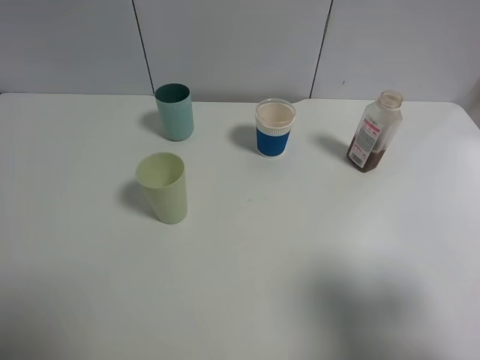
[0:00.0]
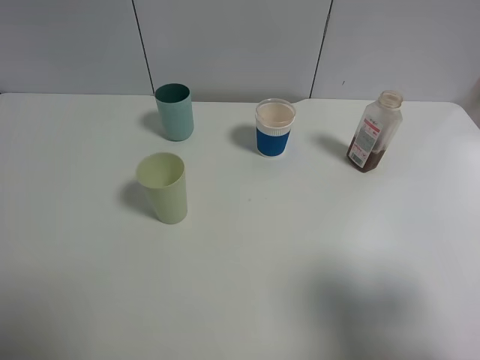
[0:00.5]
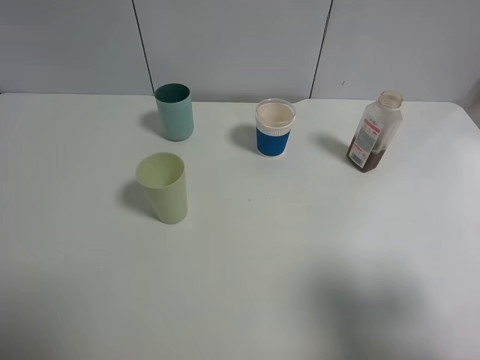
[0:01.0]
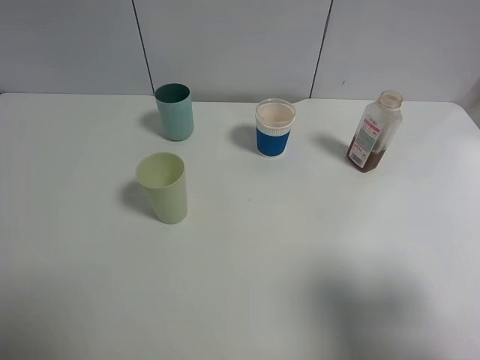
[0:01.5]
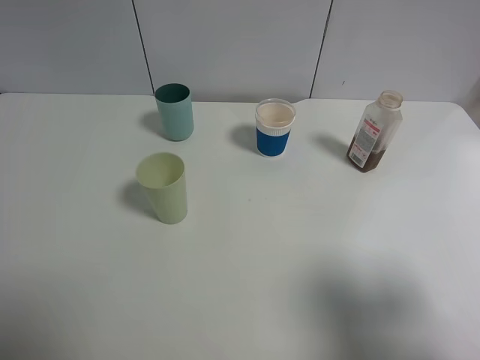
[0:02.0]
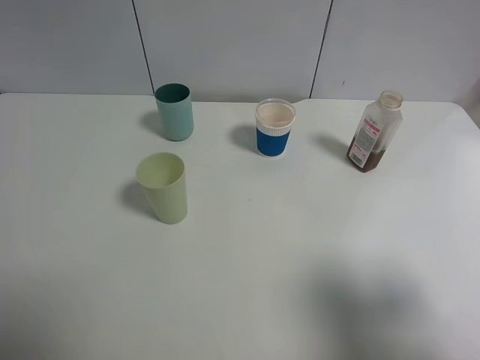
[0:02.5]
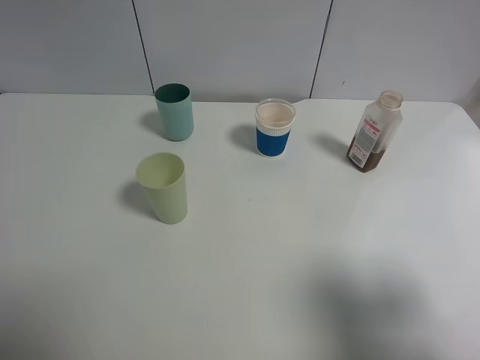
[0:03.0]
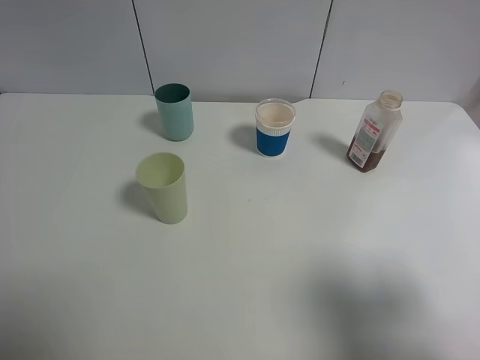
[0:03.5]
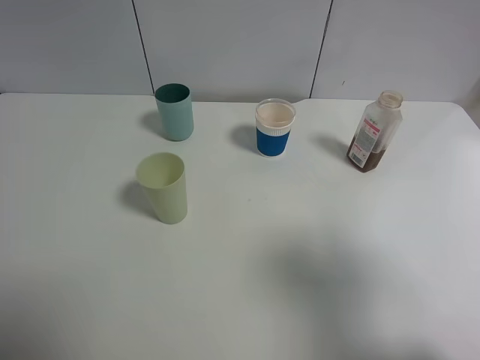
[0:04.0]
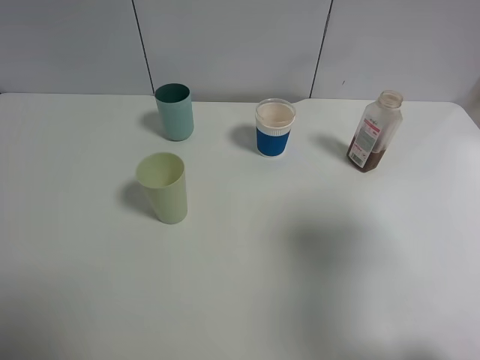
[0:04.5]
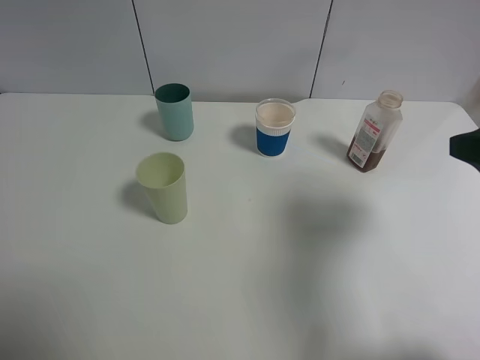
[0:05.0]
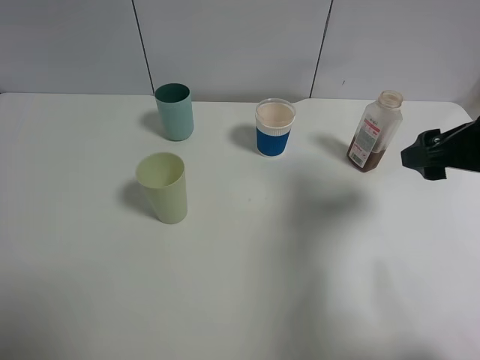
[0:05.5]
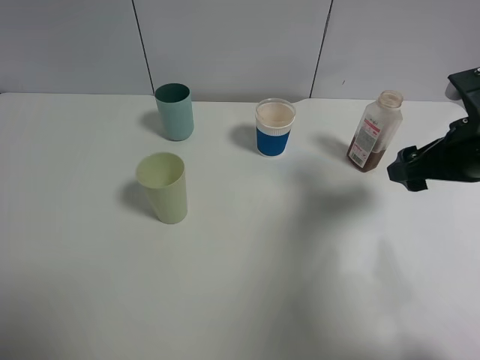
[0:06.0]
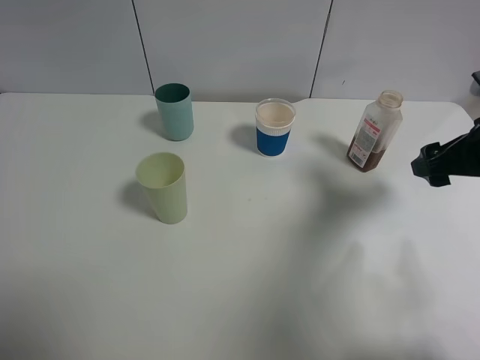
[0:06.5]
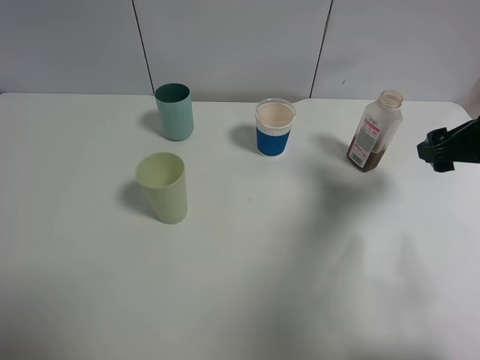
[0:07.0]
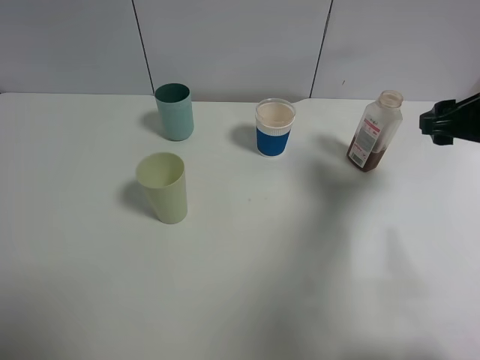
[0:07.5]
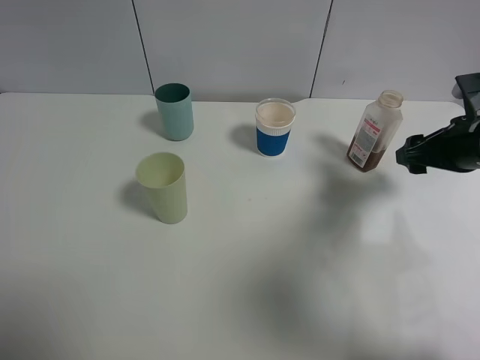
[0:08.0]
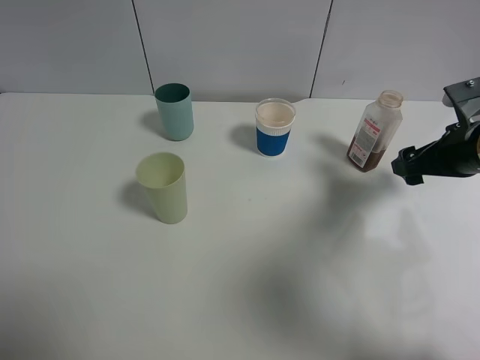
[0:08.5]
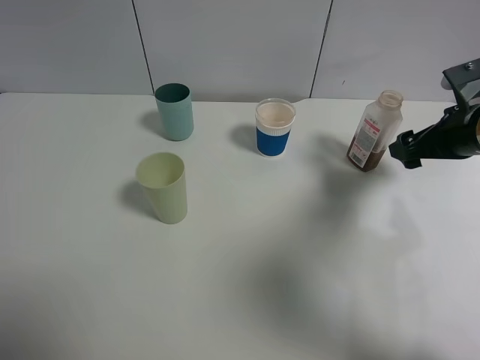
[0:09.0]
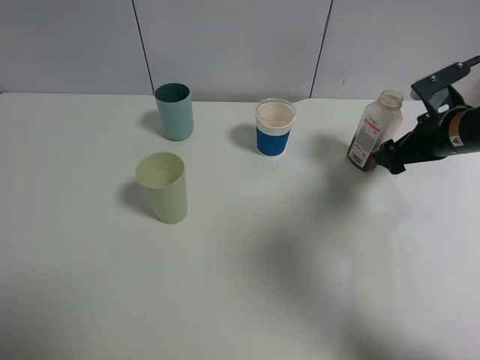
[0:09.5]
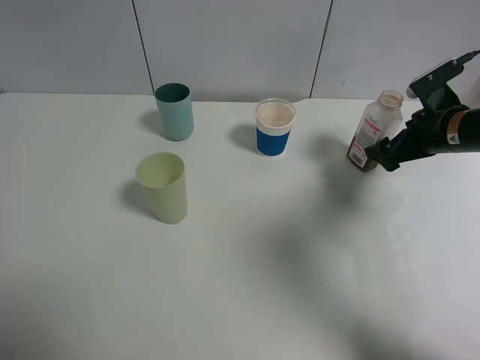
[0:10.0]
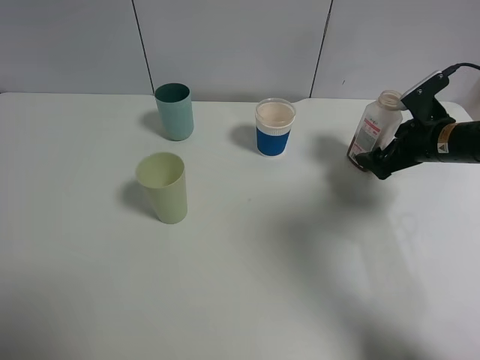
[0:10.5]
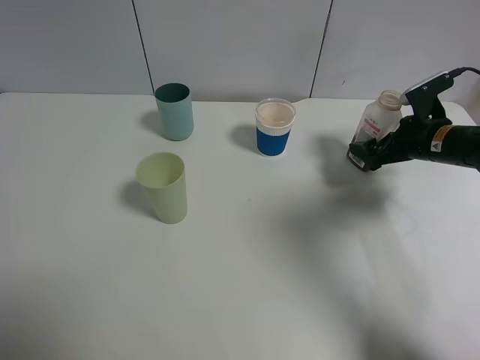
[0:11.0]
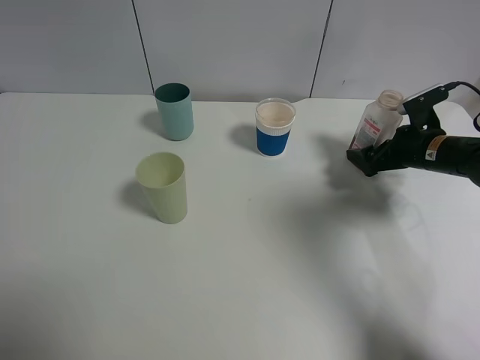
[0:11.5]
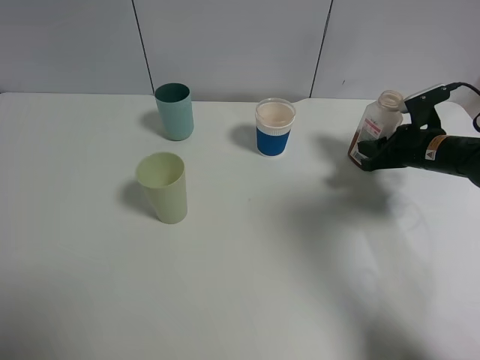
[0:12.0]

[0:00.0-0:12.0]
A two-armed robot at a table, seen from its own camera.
Task of the whole recording: use a gripper to hold the bottle of the drink and pour it into a random cup.
0:00.0 to 0:02.0: Both grippers stay put.
0:02.0 to 0:04.0: The grippers stay close to where they were, moving slightly.
0:04.0 to 0:06.0: The right gripper travels forward and downward by approximately 20 cm.
0:06.0 to 0:08.0: The right gripper moves about 5 cm.
0:08.0 to 0:10.0: The right gripper is displaced forward by roughly 5 cm, and opens up.
0:10.0 to 0:12.0: The right gripper goes roughly 5 cm downward, and closes up.

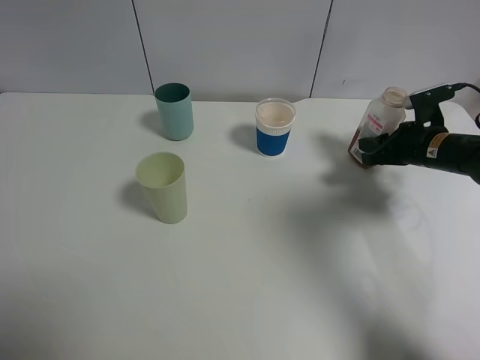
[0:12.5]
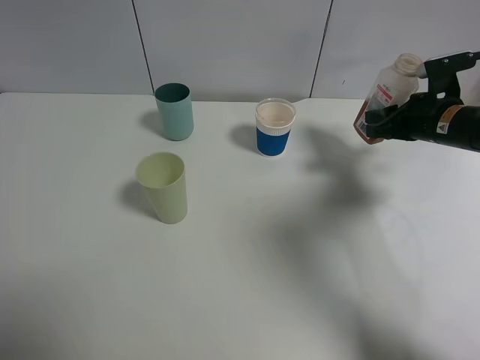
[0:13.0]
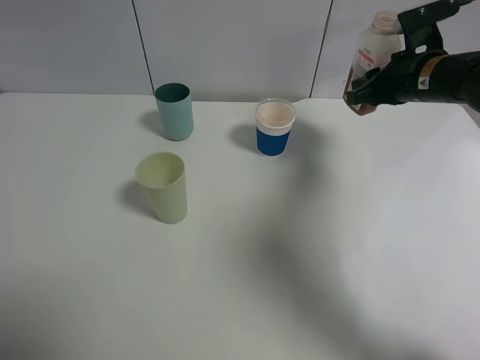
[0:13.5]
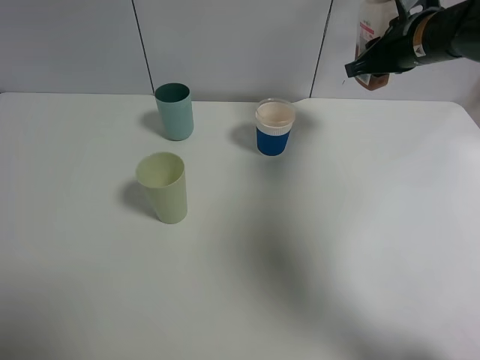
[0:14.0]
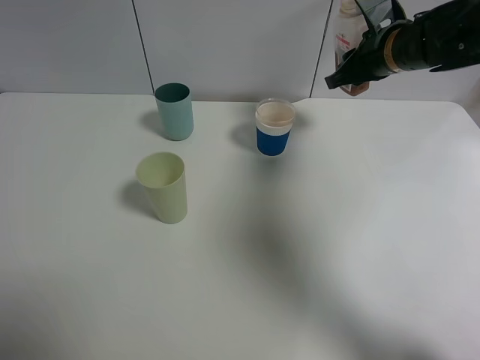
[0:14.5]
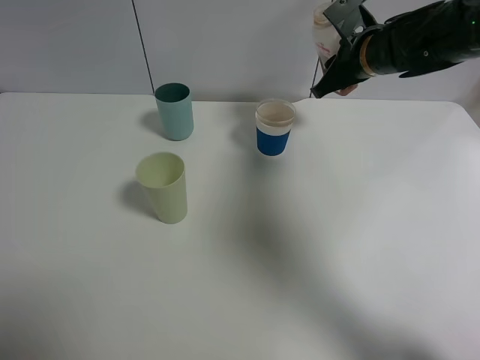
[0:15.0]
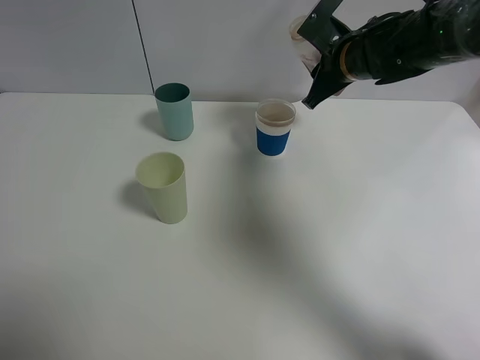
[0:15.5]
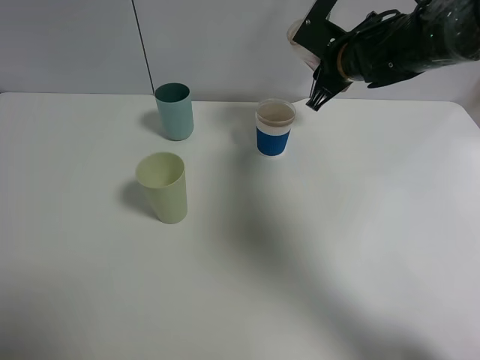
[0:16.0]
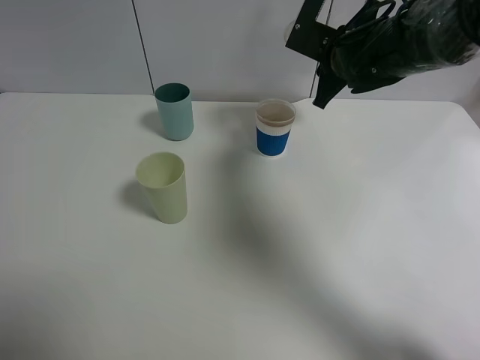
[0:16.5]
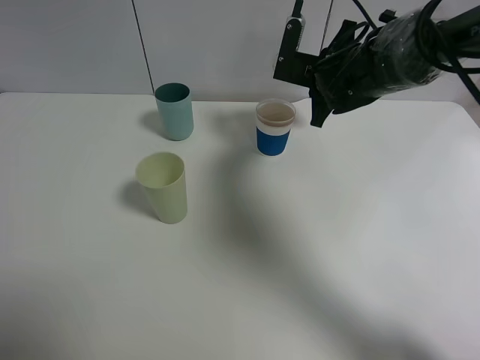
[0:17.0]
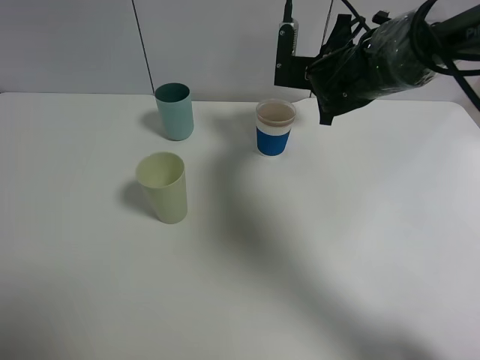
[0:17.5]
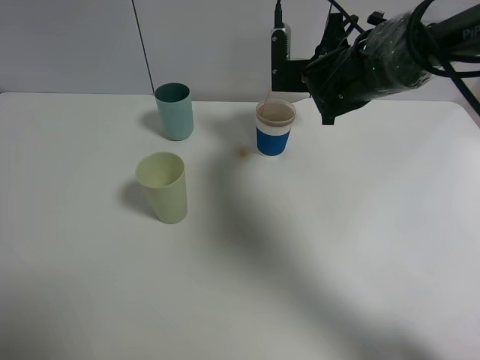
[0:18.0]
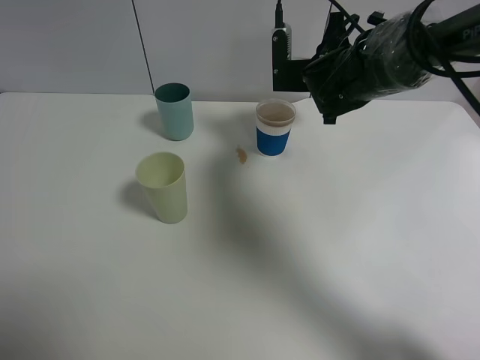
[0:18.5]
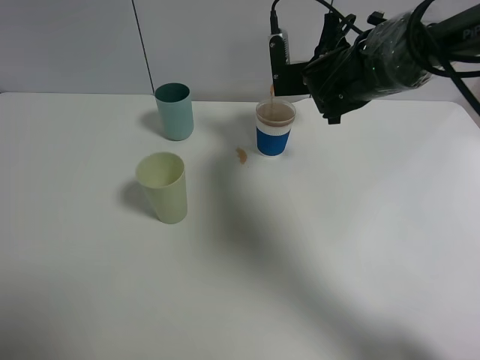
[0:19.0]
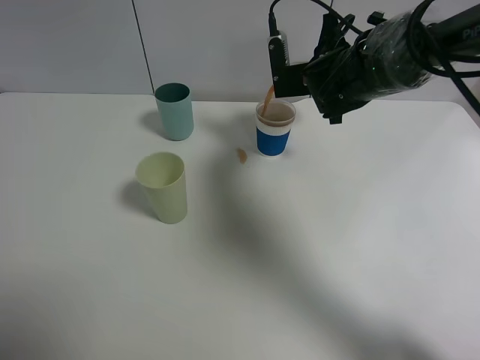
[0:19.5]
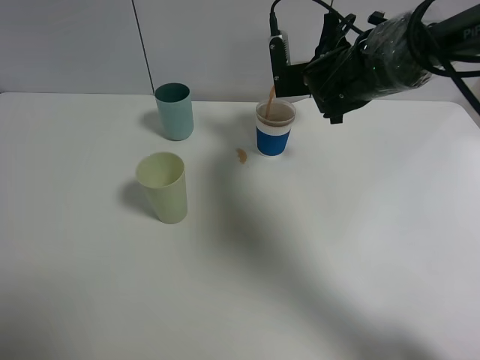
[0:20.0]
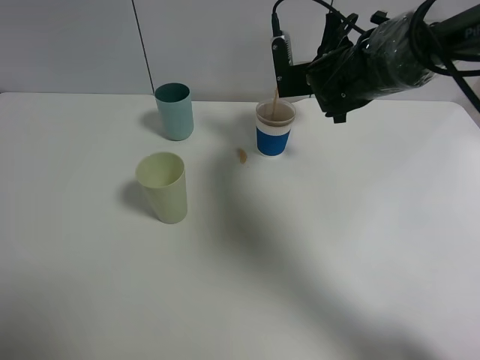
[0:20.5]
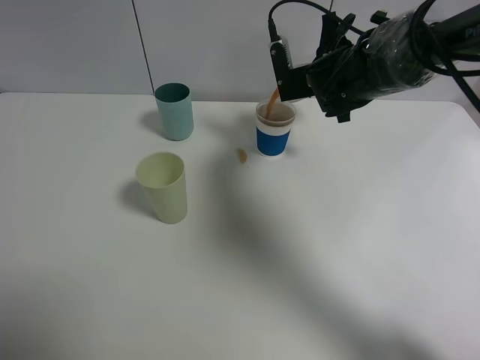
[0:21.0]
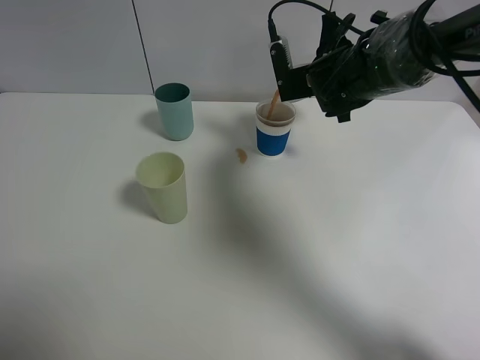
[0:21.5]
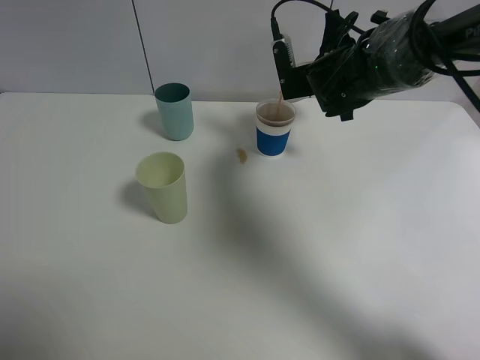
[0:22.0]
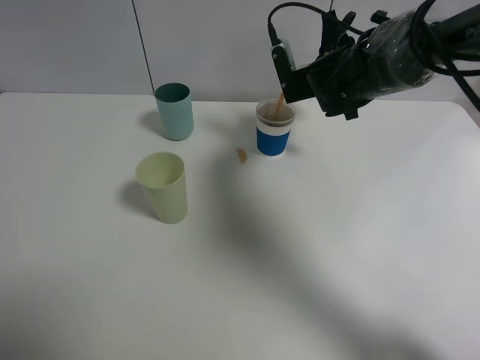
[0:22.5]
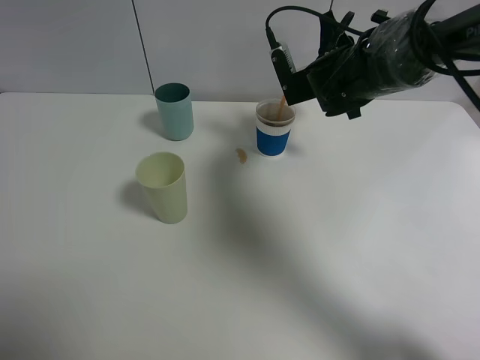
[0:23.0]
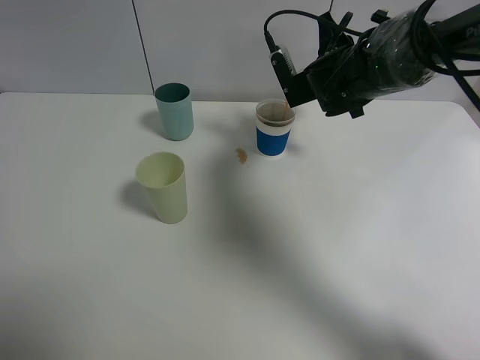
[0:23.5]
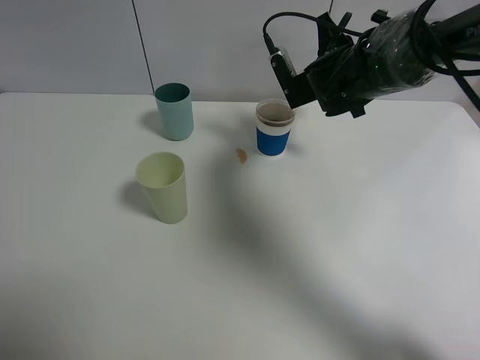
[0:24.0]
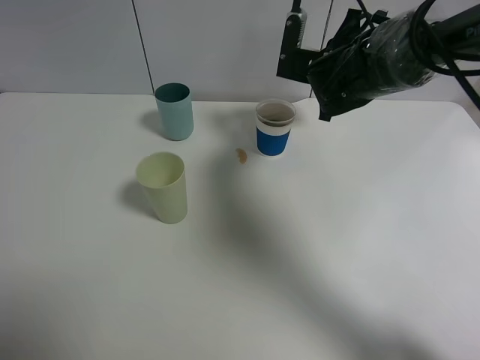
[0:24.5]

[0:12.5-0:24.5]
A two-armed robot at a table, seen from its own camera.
Task of the whole recording: use a gripper to hold the bottle of the drink and pour it into a random cup.
Step, 0:12.5 to 0:24.0: Pour the cranberry juice into the paper cup with the right gripper.
0:12.5 to 0:14.5: The right gripper moves upward, to the left and forward, roughly 15 cm.
0:14.5 to 0:16.5: The right gripper shifts roughly 5 cm to the left.
0:18.5 to 0:22.5: The grippers make only small movements.

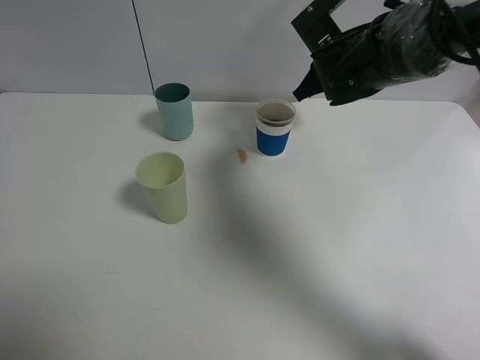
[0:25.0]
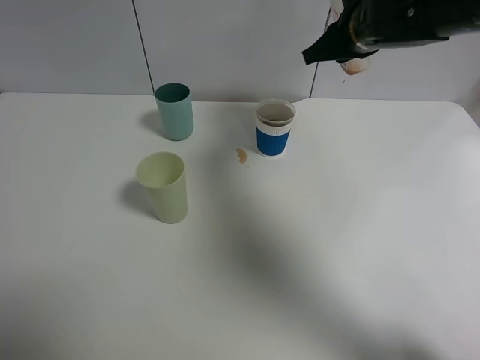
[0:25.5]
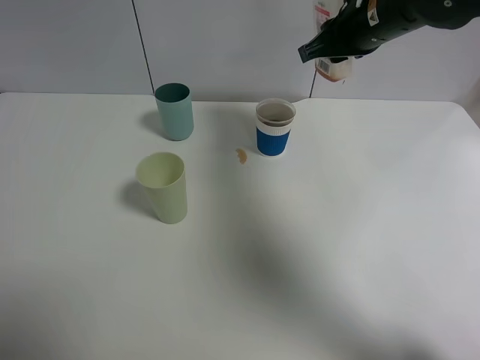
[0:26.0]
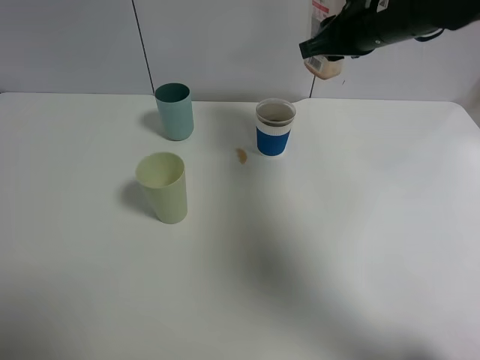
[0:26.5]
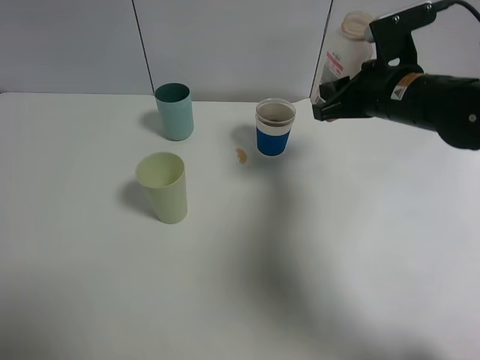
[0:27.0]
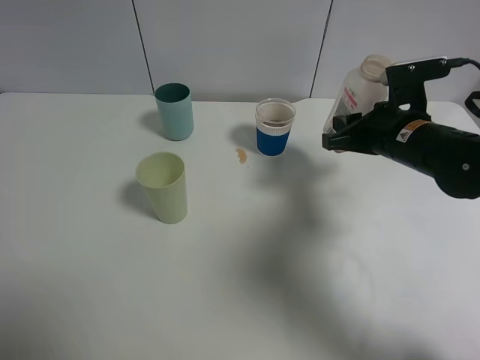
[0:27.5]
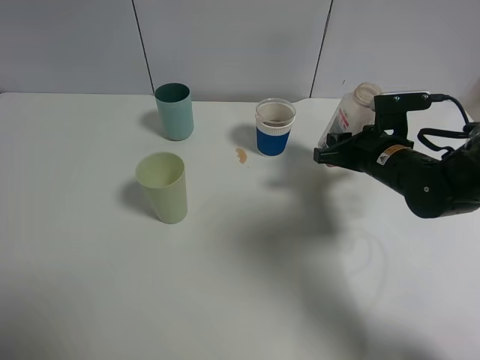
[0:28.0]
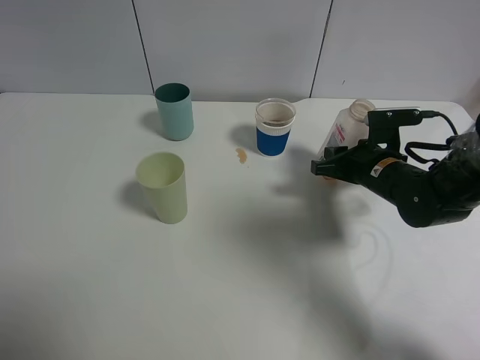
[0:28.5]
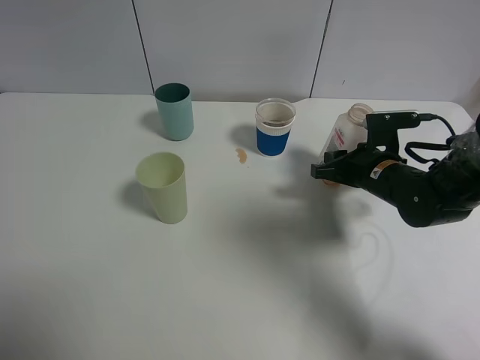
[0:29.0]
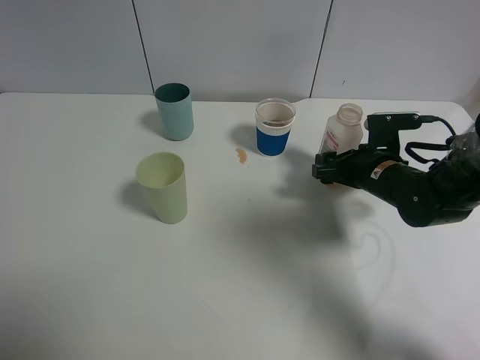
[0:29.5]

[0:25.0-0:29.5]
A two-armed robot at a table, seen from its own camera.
Task of the whole recording: use a gripper to hold the bottle of the drink and pour it into a random cup.
0:25.0 to 0:27.0: The right gripper heads backward and to the right, covering some 10 cm.
0:27.0 to 0:29.5: The right gripper shifts about 10 cm downward, and opens up.
